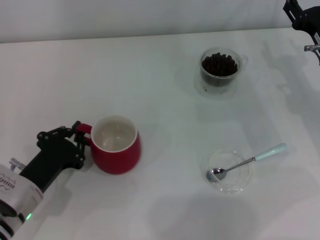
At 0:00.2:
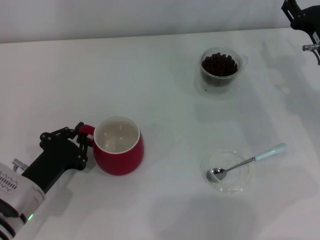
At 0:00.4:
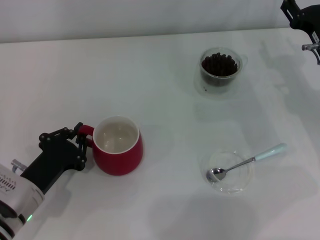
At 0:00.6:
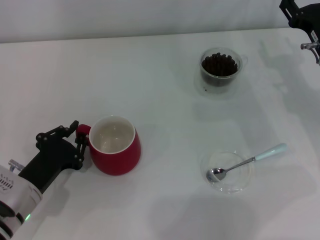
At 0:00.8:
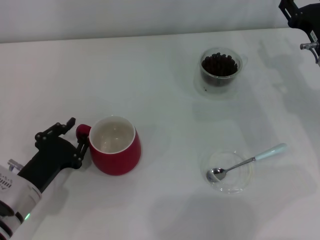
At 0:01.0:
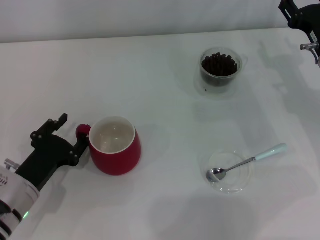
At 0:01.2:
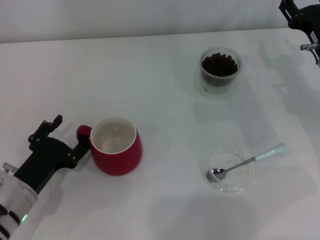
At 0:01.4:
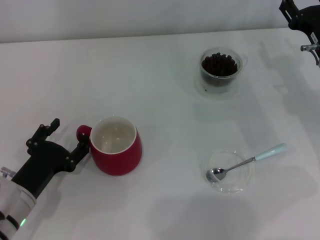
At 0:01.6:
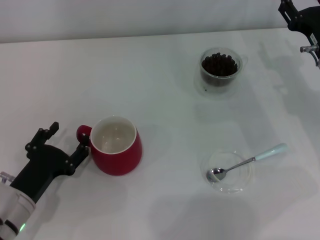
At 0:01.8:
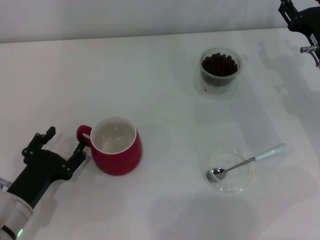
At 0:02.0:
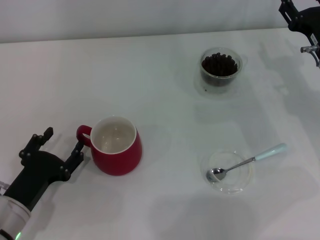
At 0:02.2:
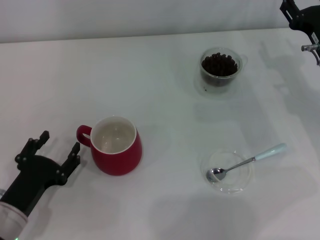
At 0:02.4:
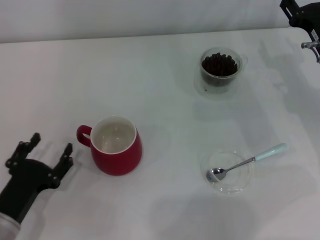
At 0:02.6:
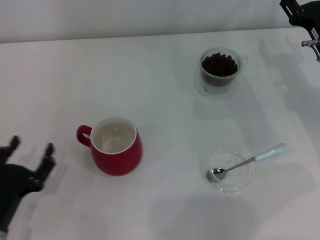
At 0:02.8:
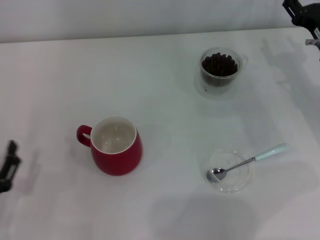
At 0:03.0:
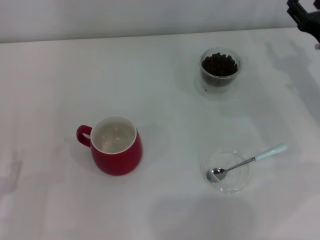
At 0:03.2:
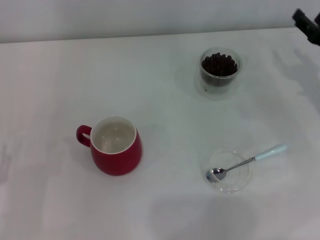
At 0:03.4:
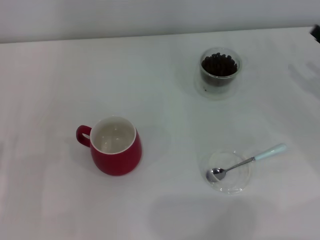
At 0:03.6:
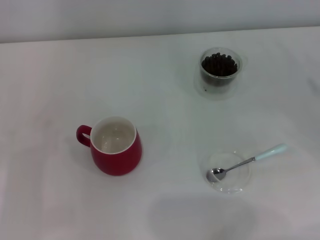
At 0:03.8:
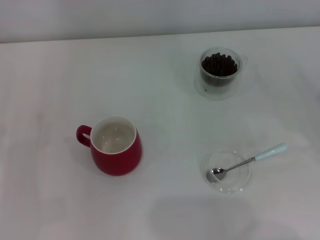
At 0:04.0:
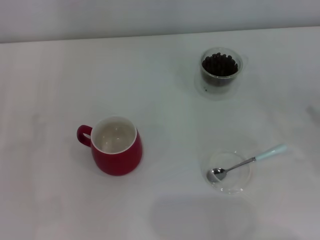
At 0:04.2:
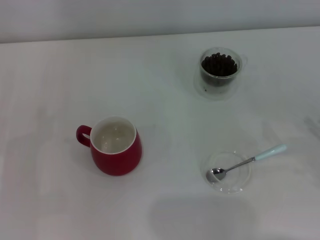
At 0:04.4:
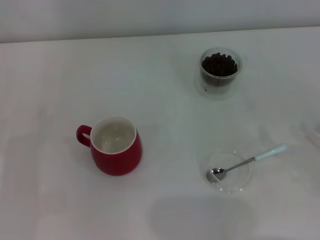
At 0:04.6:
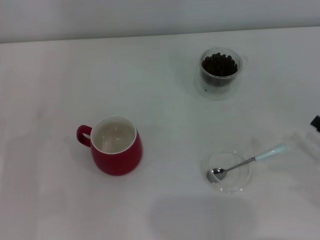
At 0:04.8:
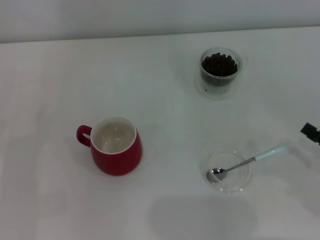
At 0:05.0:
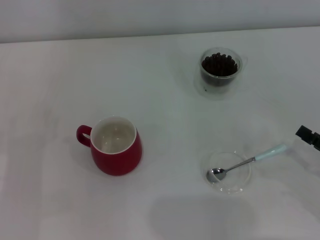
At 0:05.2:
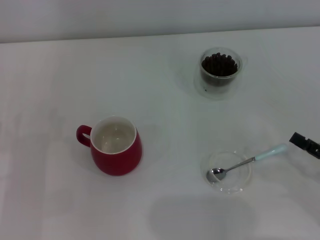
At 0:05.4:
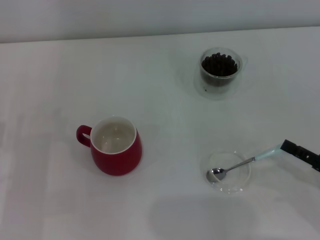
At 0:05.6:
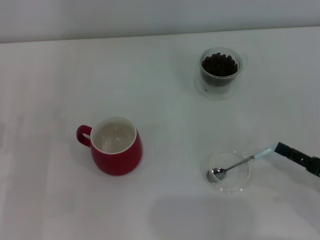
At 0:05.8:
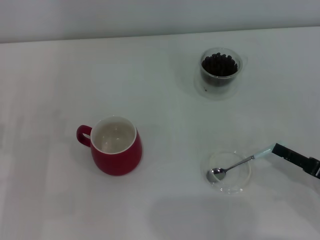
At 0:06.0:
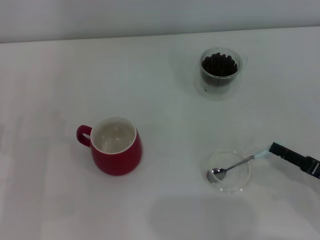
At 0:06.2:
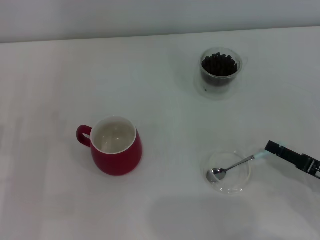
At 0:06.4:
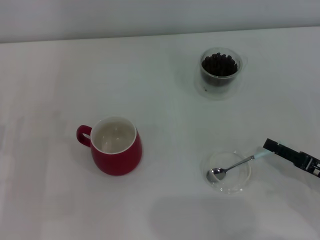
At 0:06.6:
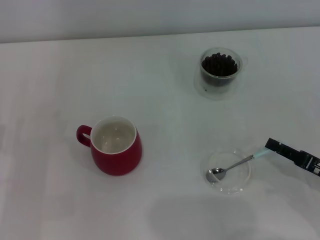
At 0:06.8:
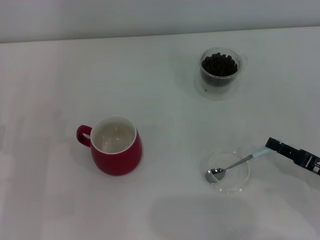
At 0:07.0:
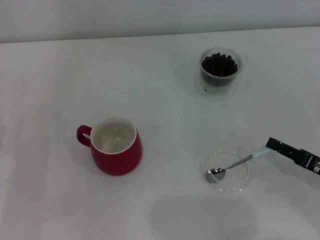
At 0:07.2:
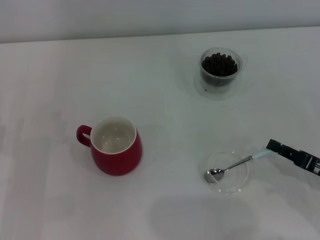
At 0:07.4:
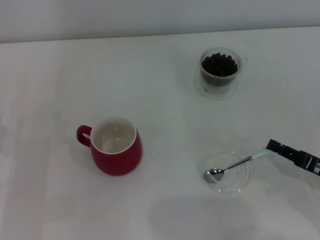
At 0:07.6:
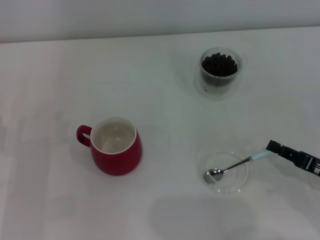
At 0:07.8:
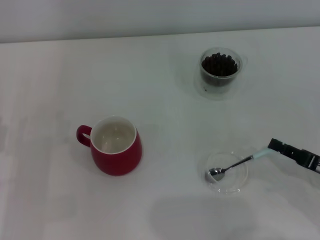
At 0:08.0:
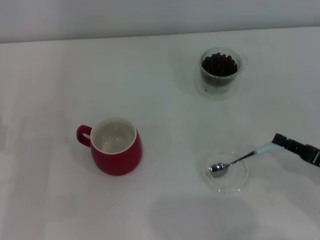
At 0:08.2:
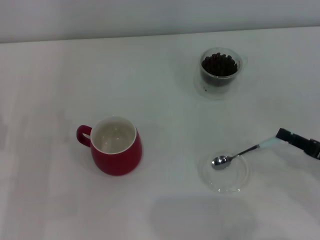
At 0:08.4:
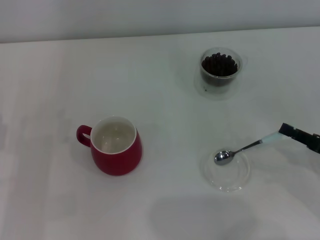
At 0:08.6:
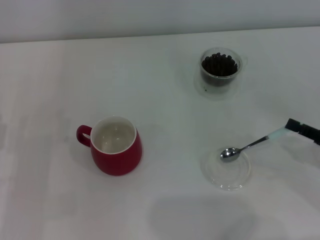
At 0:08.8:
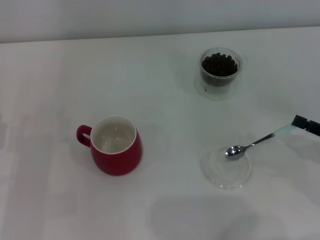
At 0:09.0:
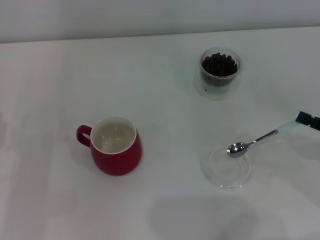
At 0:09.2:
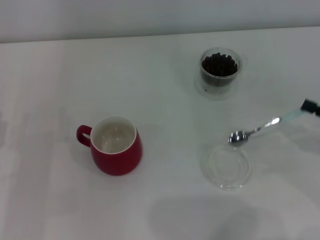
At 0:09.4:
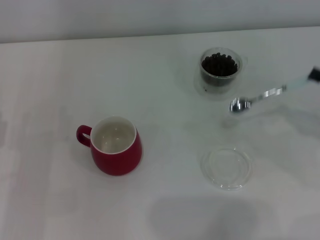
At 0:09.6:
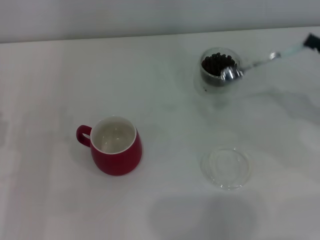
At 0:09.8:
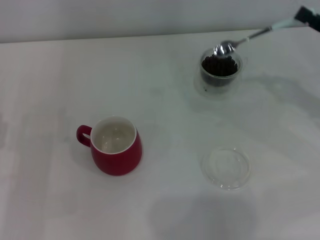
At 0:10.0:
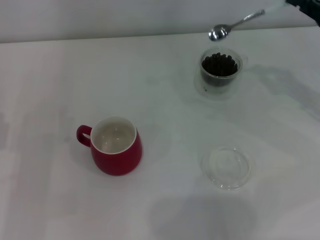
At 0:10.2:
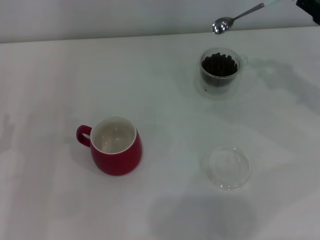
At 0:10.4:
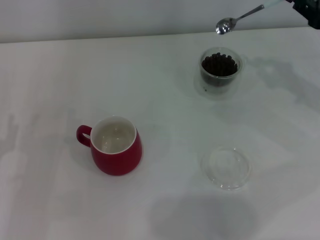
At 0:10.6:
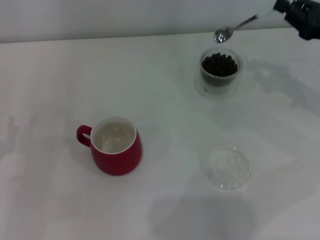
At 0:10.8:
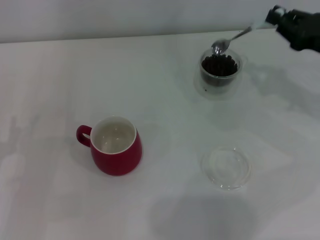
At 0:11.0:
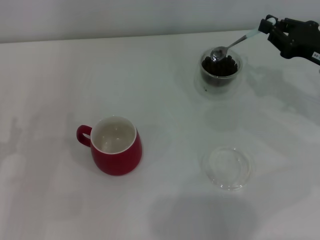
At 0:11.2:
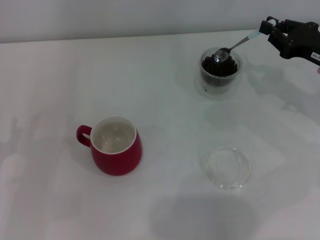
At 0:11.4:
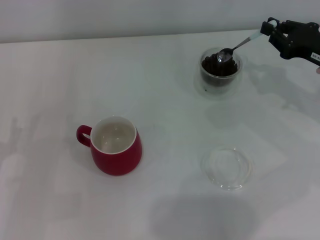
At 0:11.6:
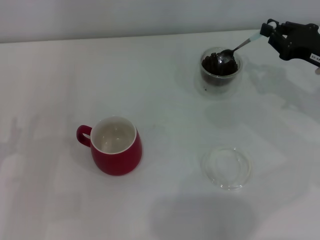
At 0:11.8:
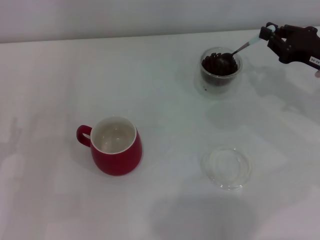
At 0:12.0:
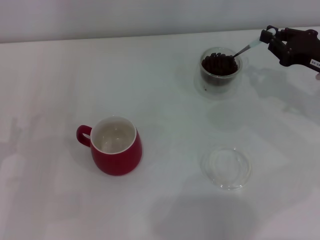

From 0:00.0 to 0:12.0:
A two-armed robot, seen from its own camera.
Task of the whole recording: Use a blue spoon to take out the coffee beans from the glass and pour them into the red cup.
Step, from 0:00.0 to 0:02.4: Move the cup to the center of view with the left gripper.
Step, from 0:02.6 to 0:09.2: Pick up the spoon with the right gripper.
From 0:00.0 to 0:01.6: The left gripper opens its fingers.
From 0:01.6 to 0:03.0: The left gripper travels backward and to the left by about 10 cm.
From 0:03.0 to 0:04.4: The right gripper heads backward, covering roughly 20 cm.
From 0:04.4 to 0:06.0: The right gripper changes place by about 5 cm.
From 0:06.0 to 0:07.6: The right gripper closes up.
From 0:07.6 to 0:09.0: The right gripper shifts by approximately 5 cm.
From 0:09.0 to 0:10.4: The right gripper heads forward and upward, covering roughly 15 cm.
From 0:10.4 to 0:12.0: There are only small adjustments of the grippers.

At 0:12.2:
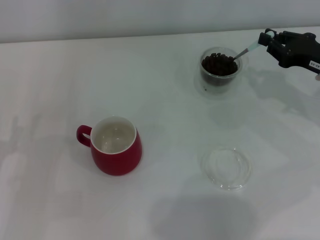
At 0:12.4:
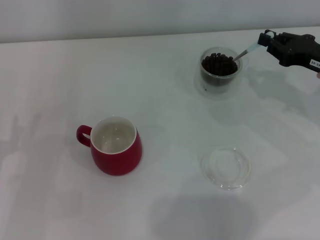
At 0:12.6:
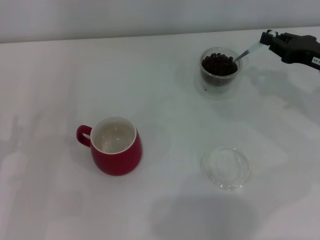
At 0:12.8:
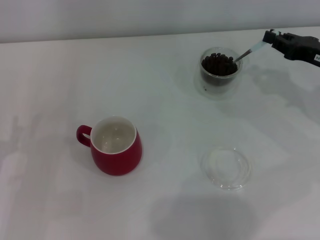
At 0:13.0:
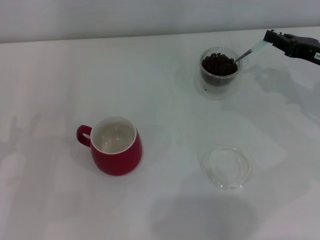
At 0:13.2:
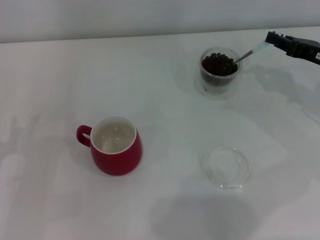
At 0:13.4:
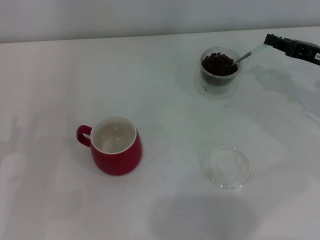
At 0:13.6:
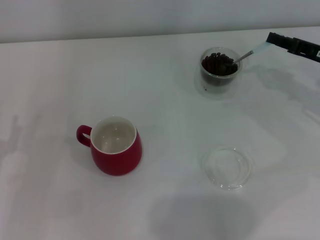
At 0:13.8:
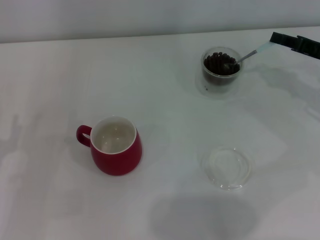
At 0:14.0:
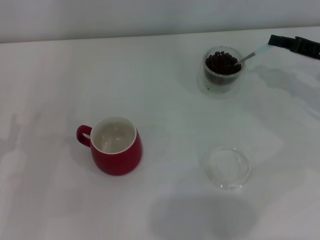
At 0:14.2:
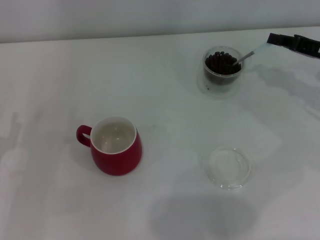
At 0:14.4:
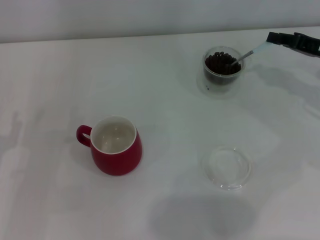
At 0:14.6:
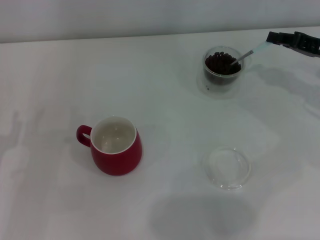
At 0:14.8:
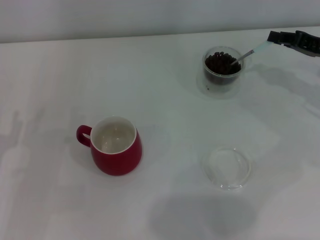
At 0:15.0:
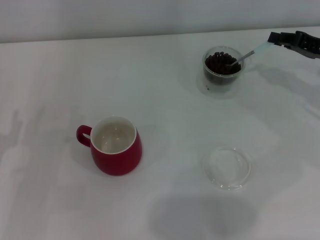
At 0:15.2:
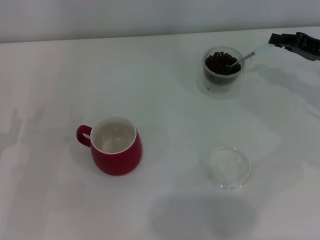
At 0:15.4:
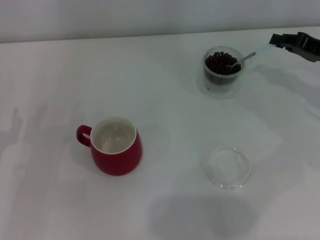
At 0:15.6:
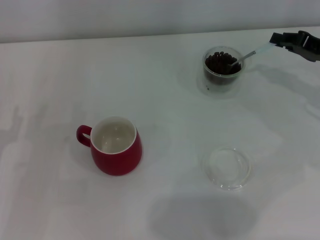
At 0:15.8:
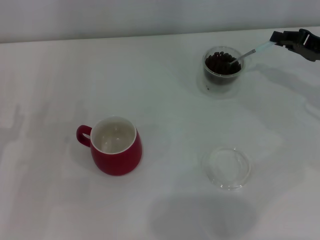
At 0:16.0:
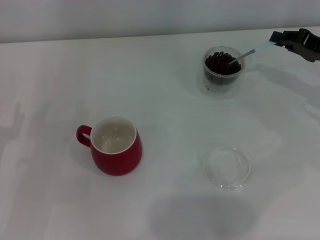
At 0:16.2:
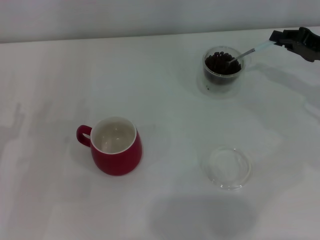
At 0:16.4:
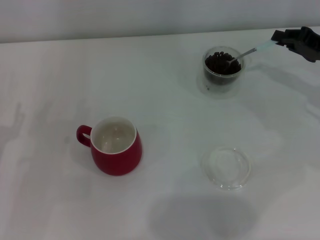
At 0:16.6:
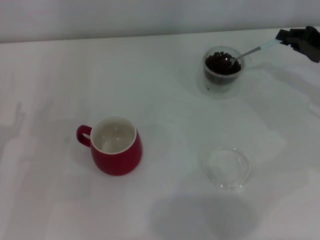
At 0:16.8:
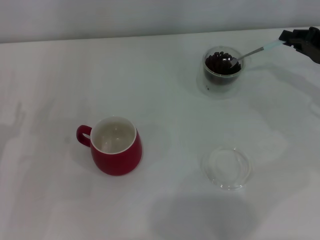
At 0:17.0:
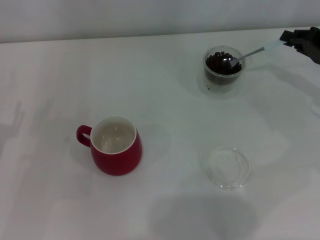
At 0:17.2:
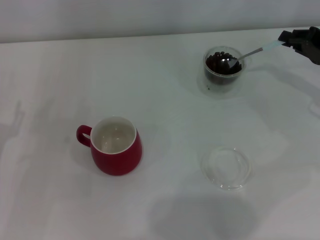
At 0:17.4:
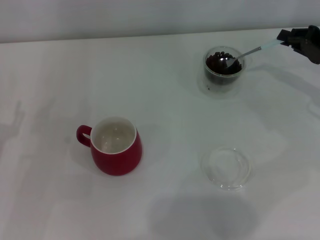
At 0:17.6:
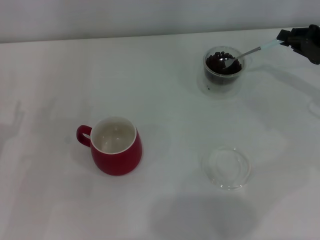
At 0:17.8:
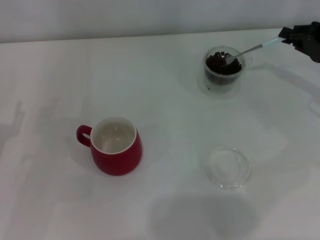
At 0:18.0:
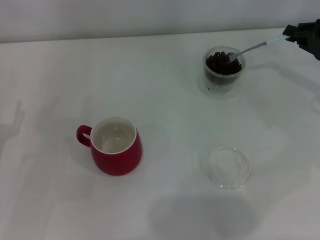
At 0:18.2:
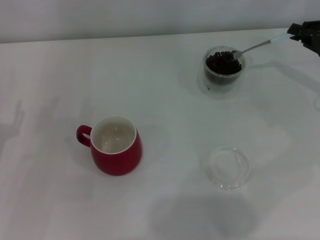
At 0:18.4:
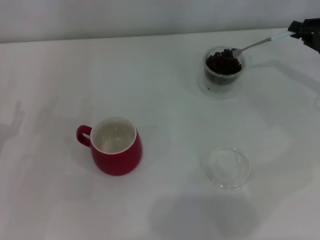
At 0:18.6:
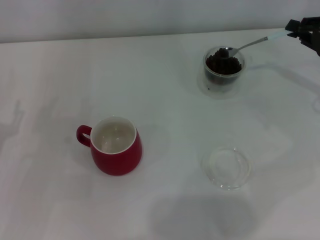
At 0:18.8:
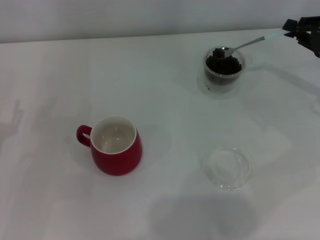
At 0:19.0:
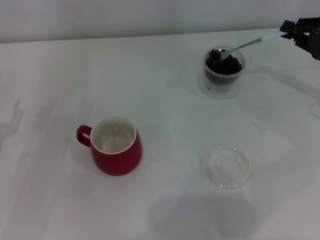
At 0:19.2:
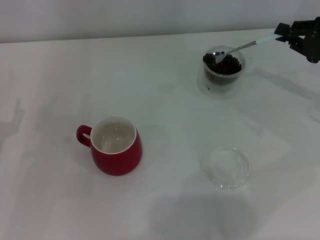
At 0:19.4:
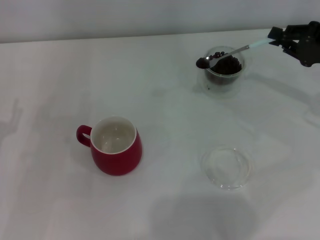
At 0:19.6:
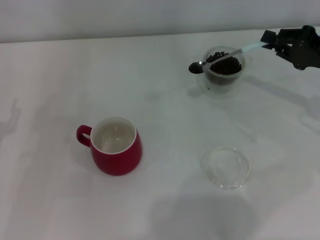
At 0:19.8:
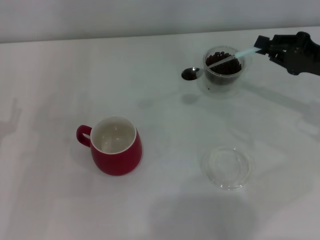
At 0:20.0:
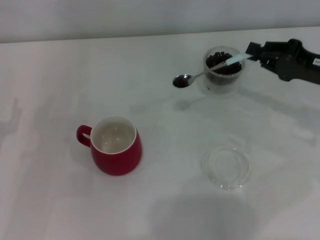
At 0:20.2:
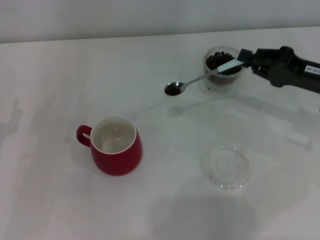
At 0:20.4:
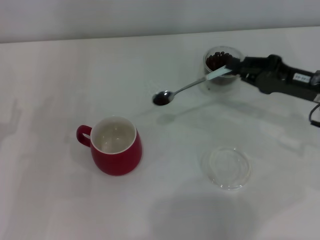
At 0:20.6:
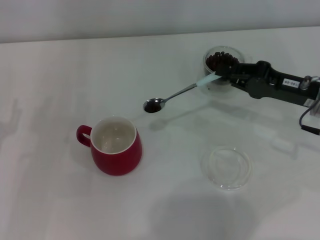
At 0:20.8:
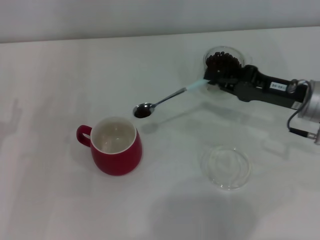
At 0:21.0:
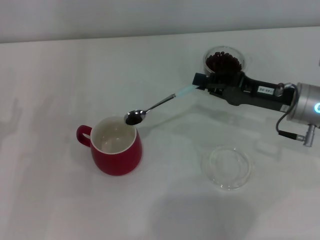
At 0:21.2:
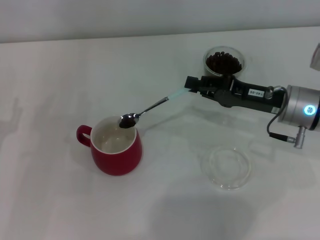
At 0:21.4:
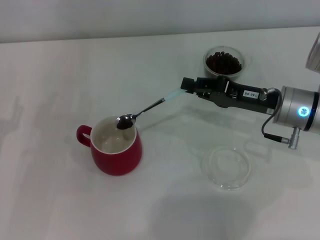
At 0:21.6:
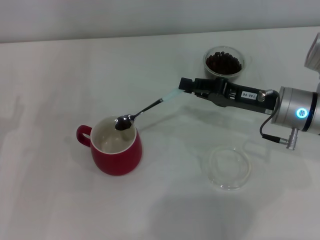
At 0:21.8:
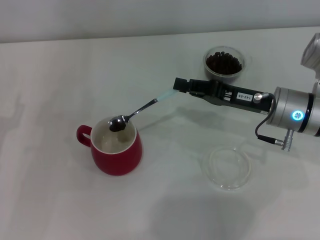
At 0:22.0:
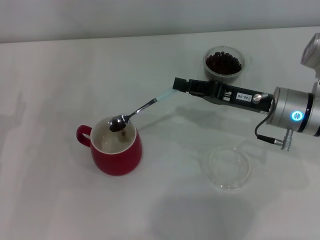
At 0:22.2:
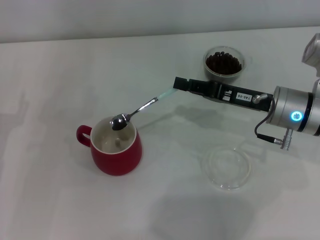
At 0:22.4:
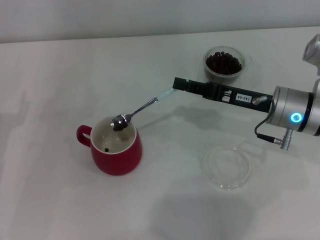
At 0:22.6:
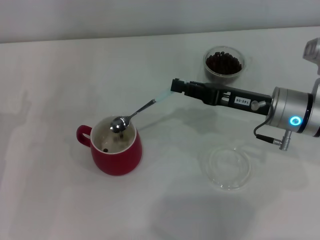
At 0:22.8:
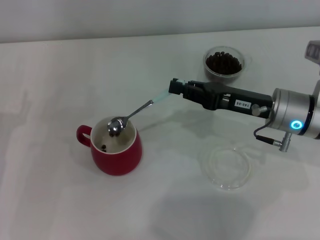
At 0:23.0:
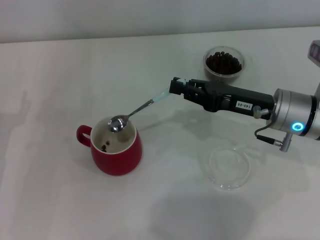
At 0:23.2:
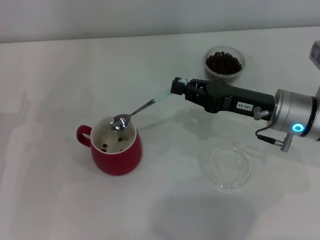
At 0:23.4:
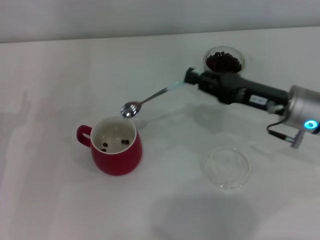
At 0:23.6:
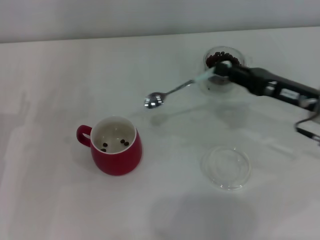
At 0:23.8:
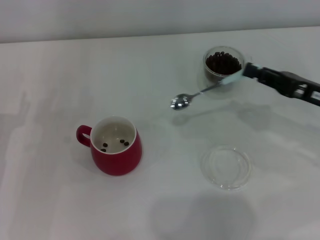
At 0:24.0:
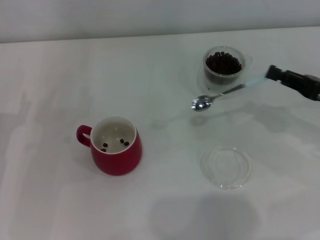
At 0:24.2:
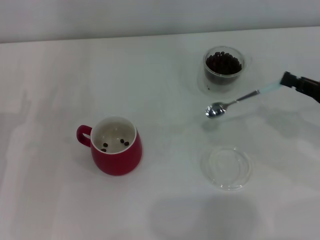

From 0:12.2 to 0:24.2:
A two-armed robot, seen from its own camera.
Task of the whole recording: Use a blue spoon to take out the coffee beans from the glass and pour them into the red cup.
Step, from 0:12.2 to 0:23.4: Scoop a spoonful of beans into the cup with the right gripper.
From 0:15.2 to 0:18.2: The grippers stay close to where they were, moving slightly.
From 0:18.2 to 0:19.8: The right gripper changes place by some 5 cm.
From 0:19.8 to 0:21.2: The right gripper moves to the left, about 10 cm.
From 0:22.6 to 0:24.2: The right gripper goes about 15 cm to the right and backward.
